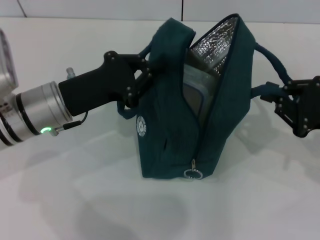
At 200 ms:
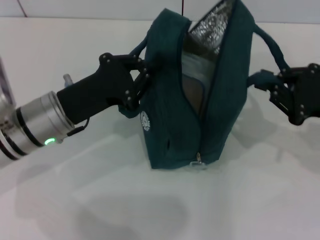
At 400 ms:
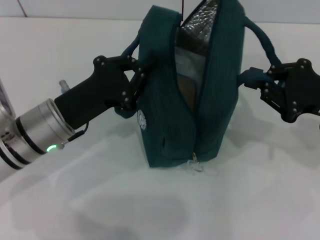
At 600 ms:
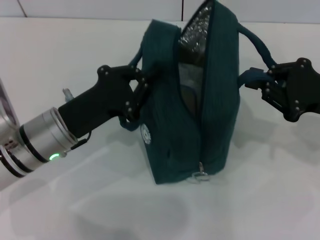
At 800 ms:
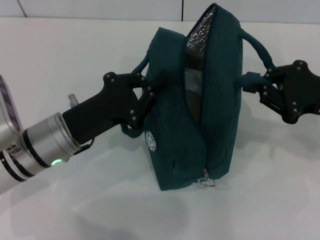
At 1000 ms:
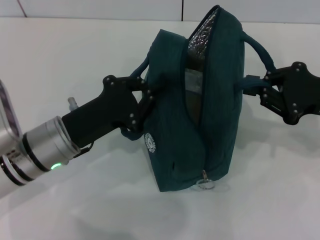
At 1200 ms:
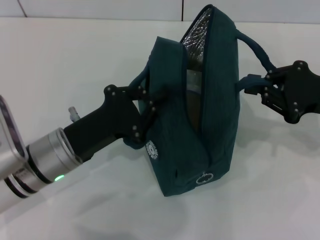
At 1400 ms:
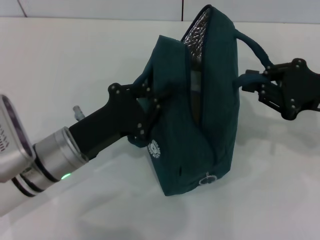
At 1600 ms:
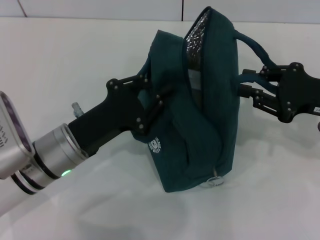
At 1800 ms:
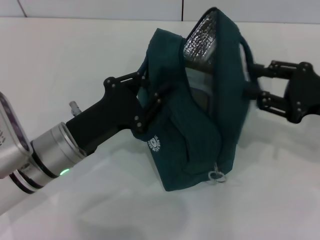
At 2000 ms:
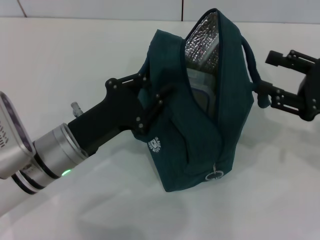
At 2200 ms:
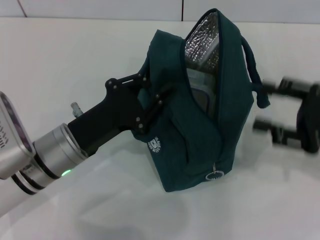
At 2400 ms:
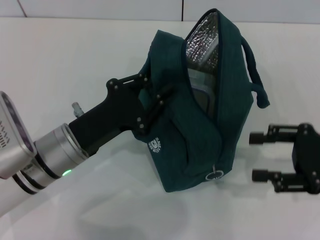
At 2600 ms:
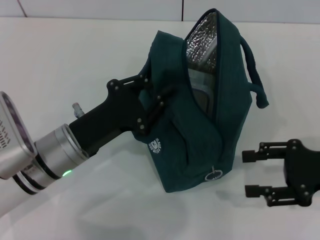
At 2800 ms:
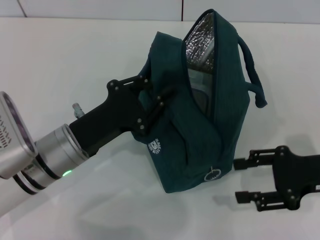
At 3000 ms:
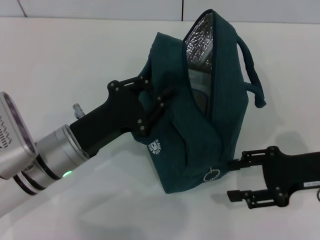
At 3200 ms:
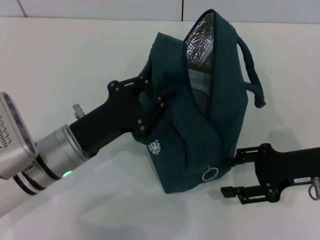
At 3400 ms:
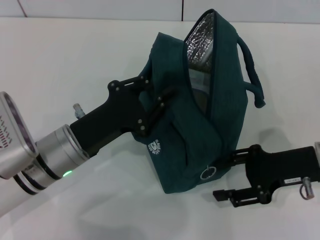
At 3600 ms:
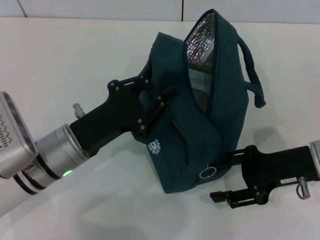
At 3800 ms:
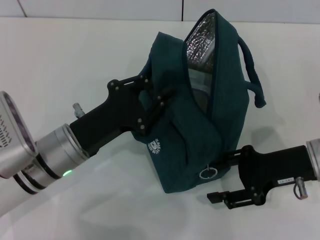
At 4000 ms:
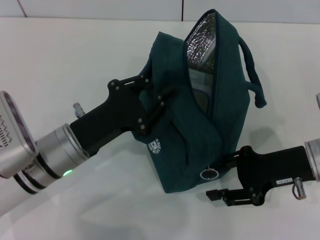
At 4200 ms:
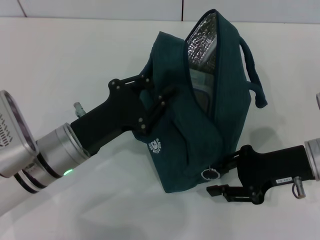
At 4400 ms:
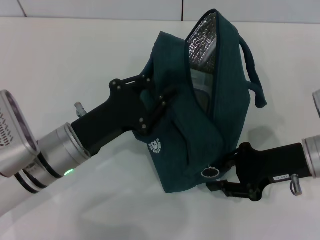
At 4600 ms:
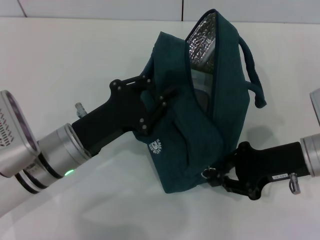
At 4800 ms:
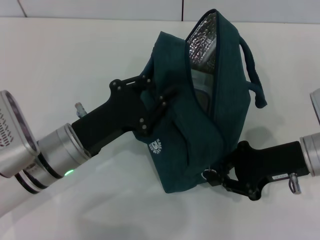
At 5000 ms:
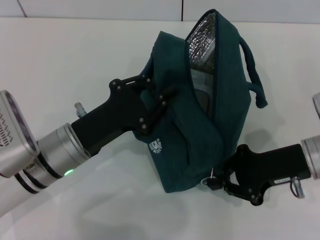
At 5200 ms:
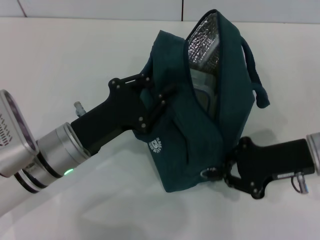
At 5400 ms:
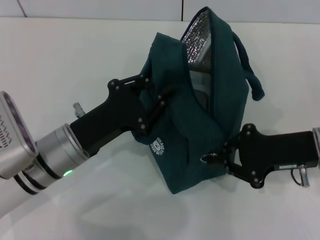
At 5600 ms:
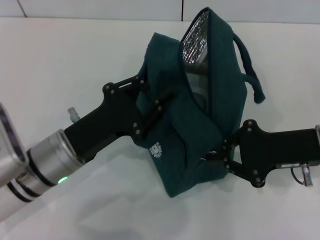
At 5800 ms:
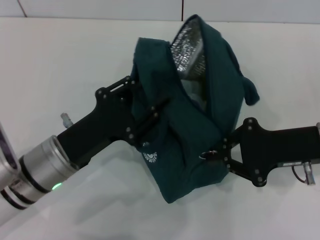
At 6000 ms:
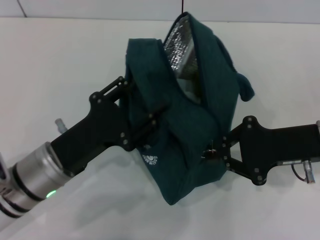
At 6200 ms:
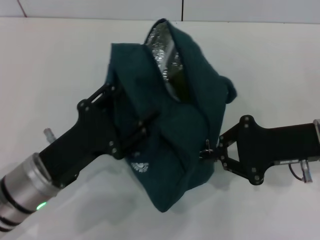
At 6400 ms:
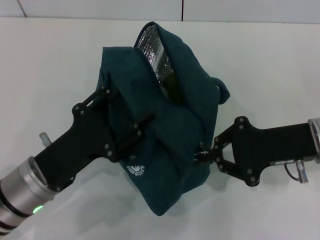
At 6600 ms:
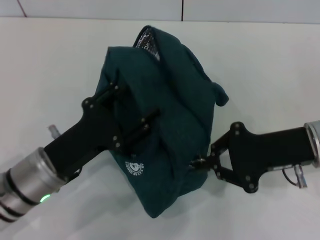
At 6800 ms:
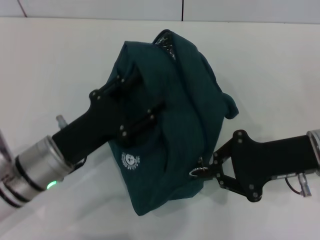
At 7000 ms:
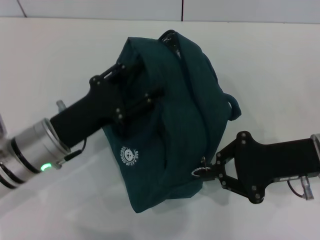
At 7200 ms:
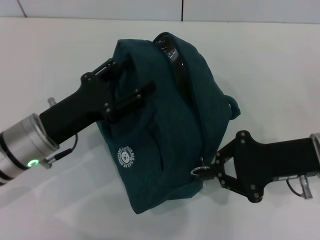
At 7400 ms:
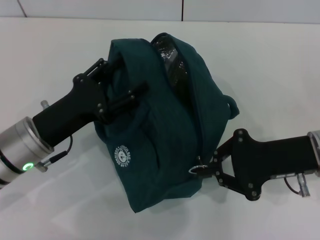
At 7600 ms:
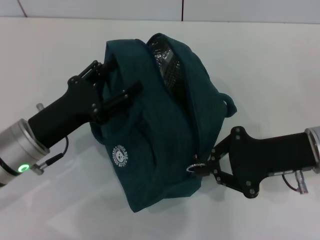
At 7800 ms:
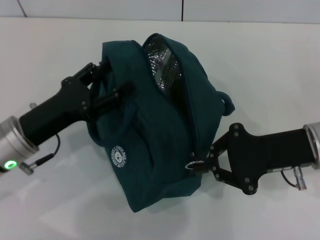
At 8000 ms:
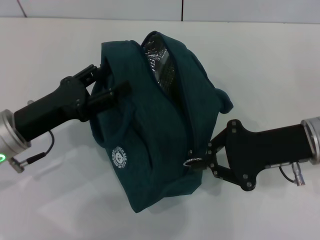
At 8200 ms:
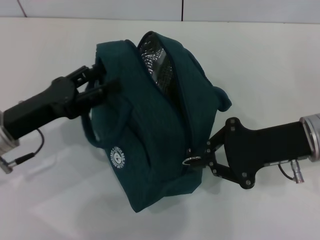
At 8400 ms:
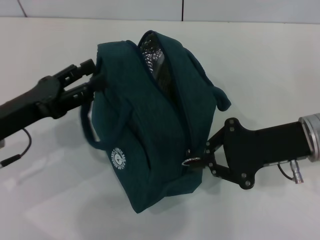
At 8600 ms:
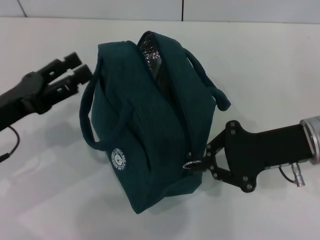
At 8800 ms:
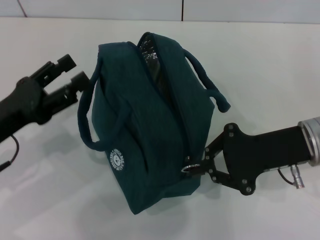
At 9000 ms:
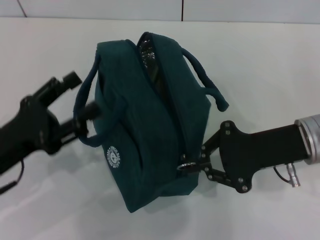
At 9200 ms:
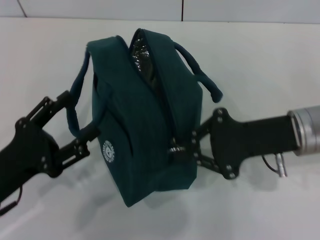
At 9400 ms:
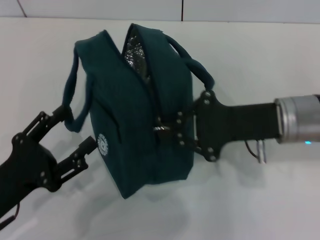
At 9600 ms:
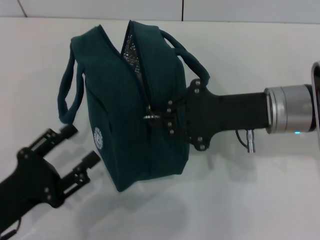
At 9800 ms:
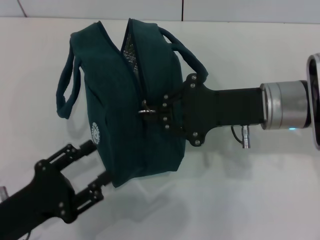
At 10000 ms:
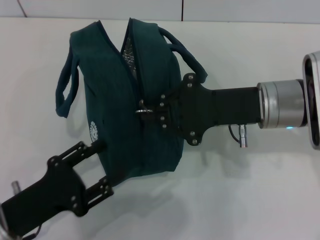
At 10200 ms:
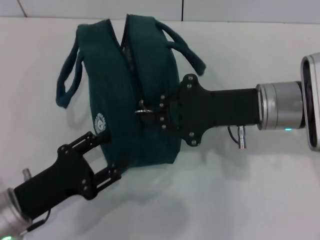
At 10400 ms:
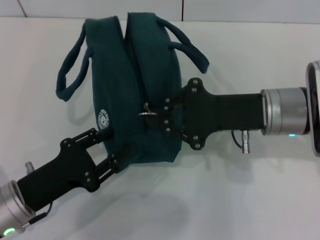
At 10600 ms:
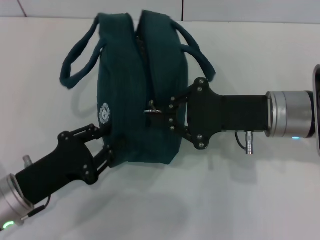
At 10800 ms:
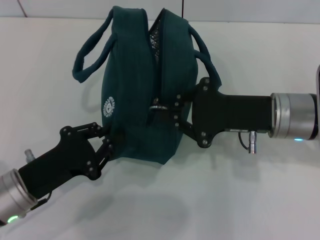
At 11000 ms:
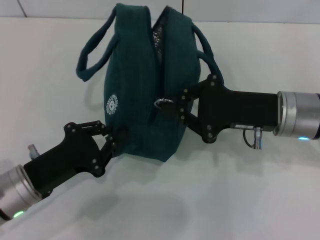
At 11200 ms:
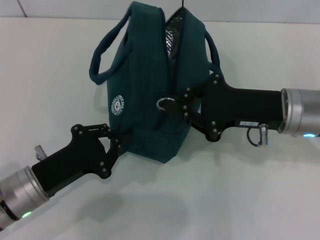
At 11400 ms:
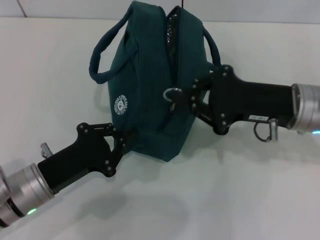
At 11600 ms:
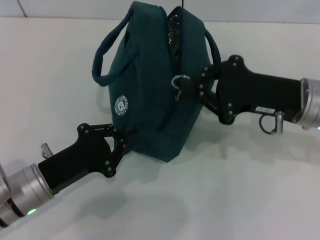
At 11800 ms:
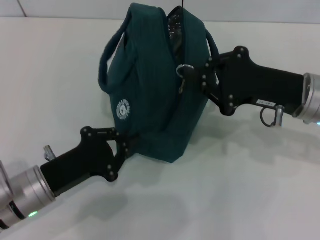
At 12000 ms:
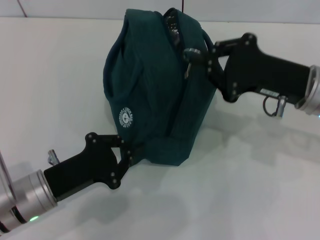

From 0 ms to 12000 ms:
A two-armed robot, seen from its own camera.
Step, from 1800 ms to 8600 ms: Hold the lunch bag with your left hand.
From 0 ms to 1600 ms: The left gripper changes place by some 5 cm.
From 1600 ms to 3000 ms: The right gripper moves about 5 cm, and opens up.
From 3000 ms to 4400 ms: There are only small adjustments of the grippers.
From 4400 ms to 6000 ms: The right gripper closes its fingers.
From 6000 ms to 7600 ms: The left gripper opens its fingers.
From 7600 ms to 9000 ms: The left gripper changes place by approximately 5 cm.
From 9000 ms to 10400 ms: The left gripper shifts some 5 cm downward.
From 10400 ms to 12000 ms: The left gripper closes up.

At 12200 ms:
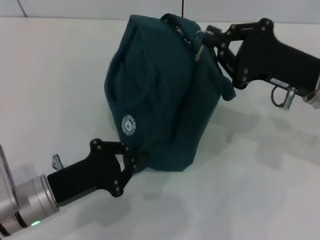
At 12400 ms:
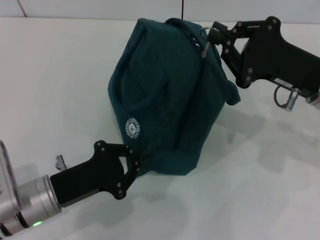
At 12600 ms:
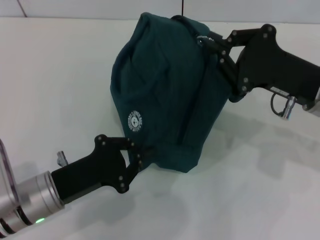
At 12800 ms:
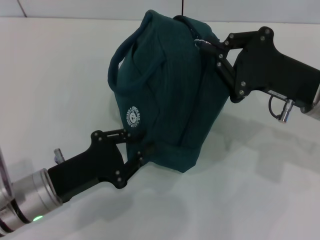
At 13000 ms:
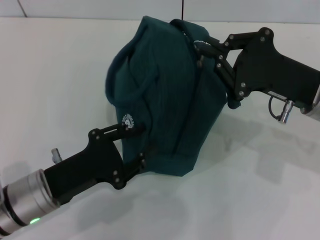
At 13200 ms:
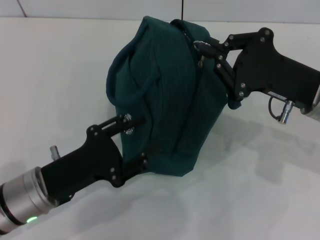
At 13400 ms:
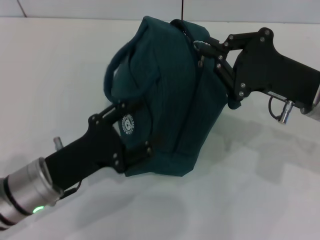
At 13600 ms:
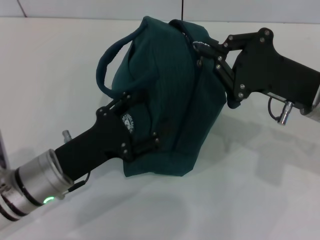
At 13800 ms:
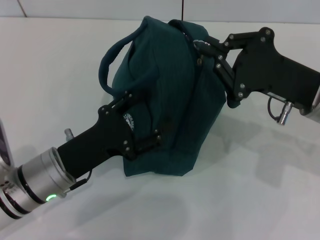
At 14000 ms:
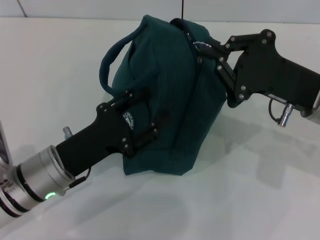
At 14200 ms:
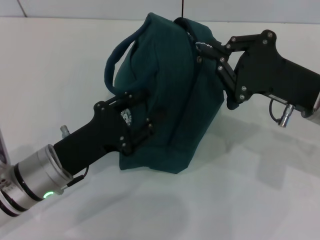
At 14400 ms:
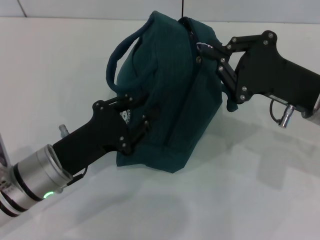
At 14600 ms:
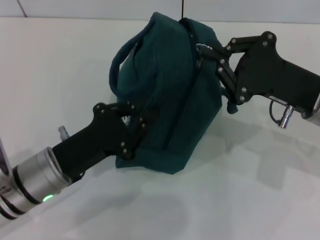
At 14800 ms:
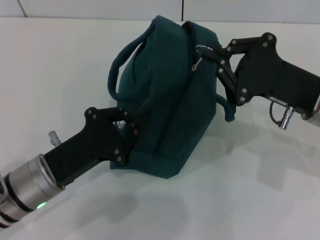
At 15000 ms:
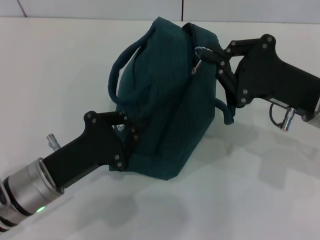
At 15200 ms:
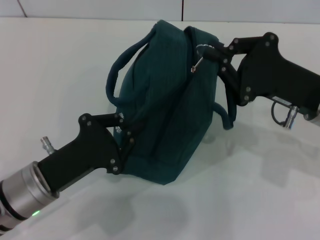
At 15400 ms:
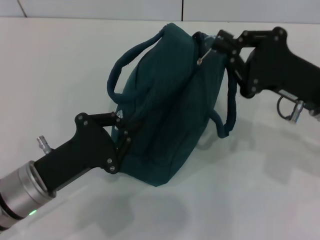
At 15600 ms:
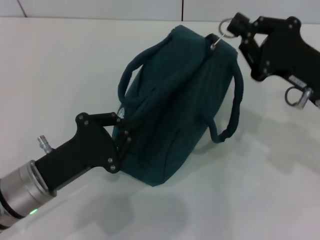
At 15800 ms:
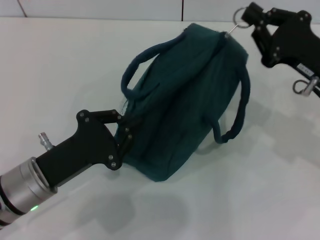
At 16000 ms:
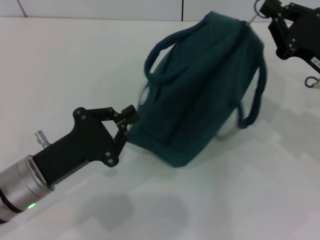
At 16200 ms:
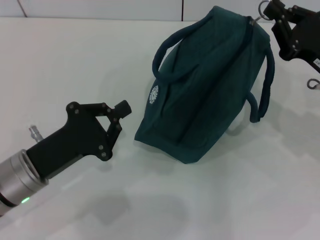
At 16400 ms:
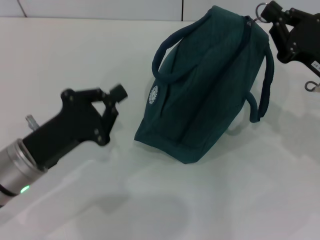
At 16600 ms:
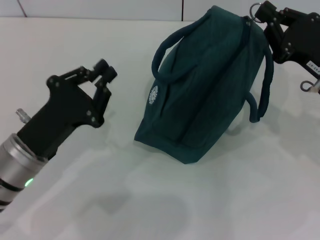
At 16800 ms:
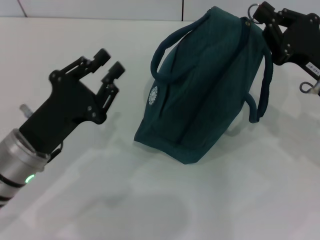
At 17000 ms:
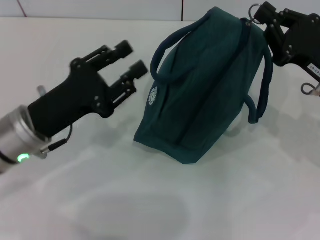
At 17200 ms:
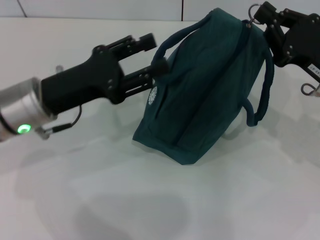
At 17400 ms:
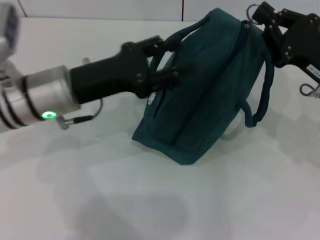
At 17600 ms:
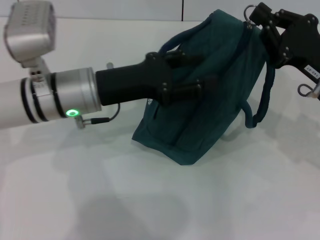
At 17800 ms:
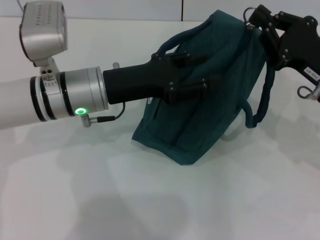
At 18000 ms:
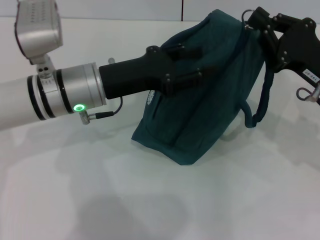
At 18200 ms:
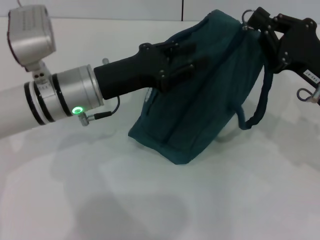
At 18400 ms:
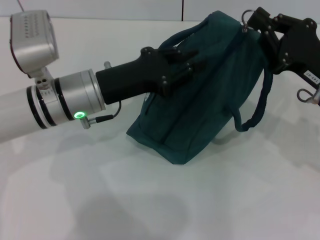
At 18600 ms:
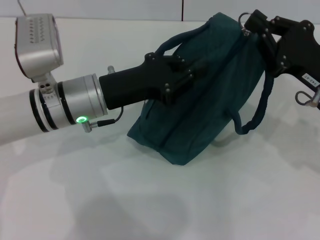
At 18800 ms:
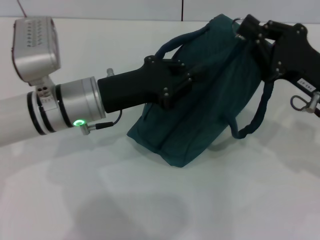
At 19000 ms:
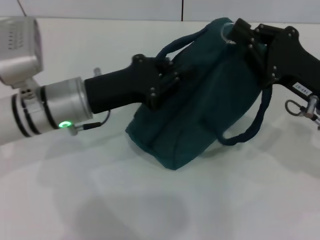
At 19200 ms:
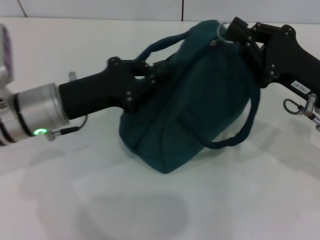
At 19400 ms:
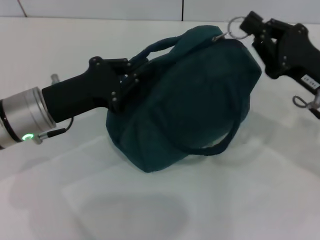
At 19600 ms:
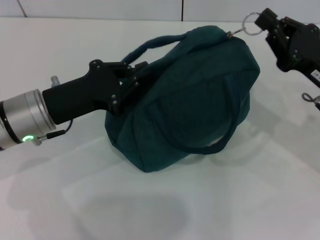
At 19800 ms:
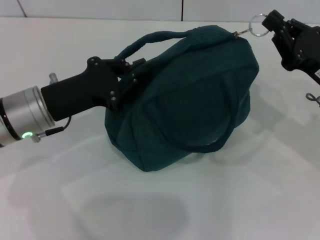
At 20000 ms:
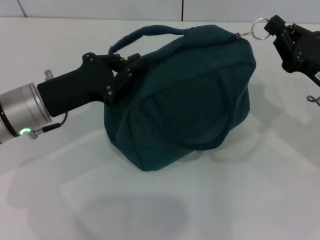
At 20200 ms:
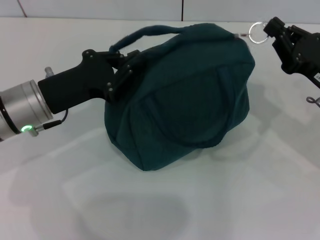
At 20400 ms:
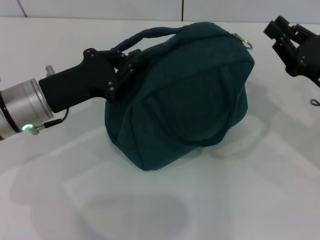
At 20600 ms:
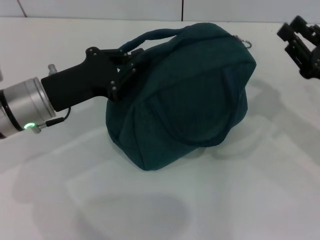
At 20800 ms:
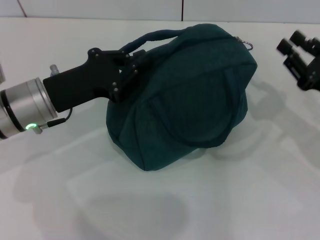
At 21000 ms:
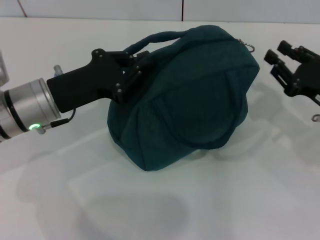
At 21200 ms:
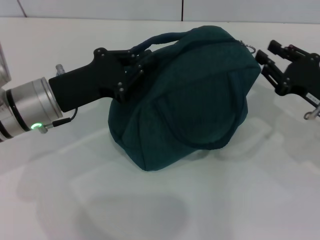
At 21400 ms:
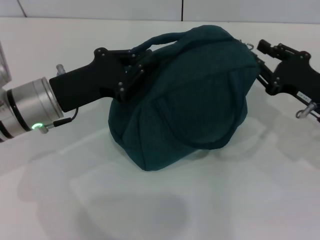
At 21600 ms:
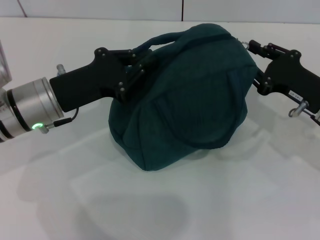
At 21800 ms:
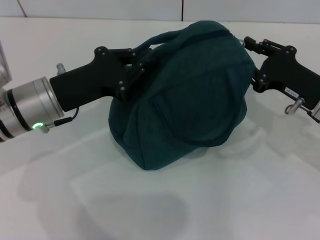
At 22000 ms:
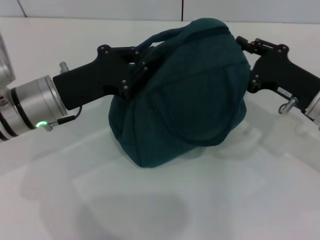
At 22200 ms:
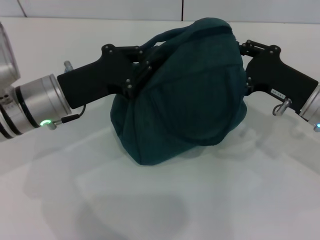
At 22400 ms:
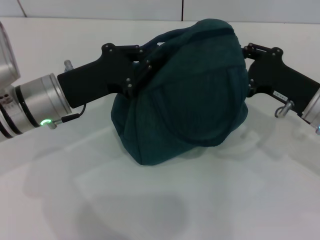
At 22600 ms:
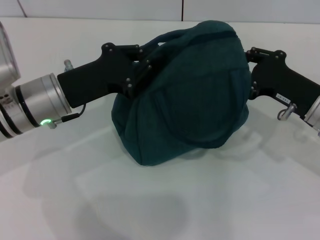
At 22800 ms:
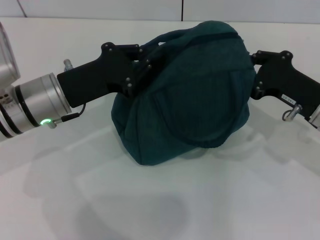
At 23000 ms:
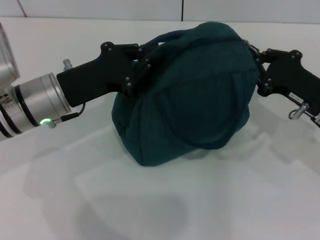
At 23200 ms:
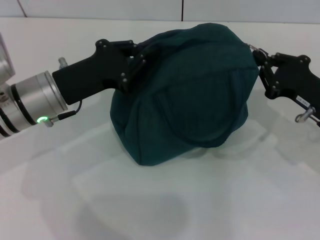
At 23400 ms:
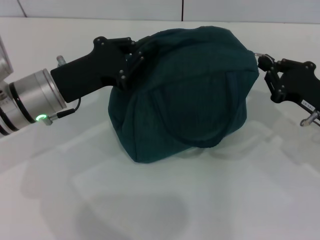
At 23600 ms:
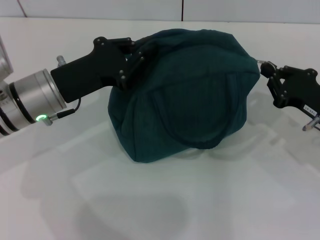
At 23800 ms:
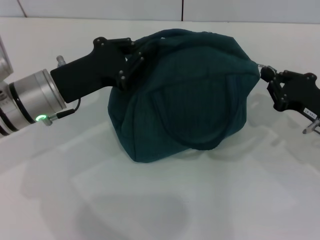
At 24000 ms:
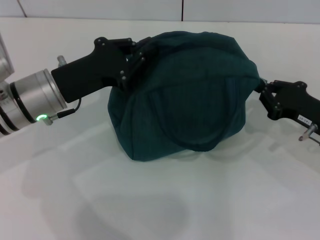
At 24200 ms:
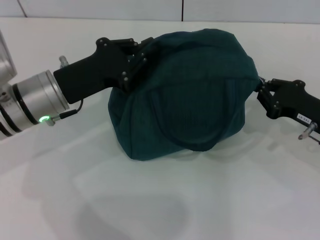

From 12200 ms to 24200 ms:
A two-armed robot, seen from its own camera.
From 12200 ms to 13800 ms: The left gripper opens.
From 13800 ms to 15200 ms: The left gripper closes up.
From 16600 ms to 18200 ms: The left gripper moves forward, to the right and upward, roughly 15 cm, and opens.
From 18200 ms to 19800 ms: The left gripper goes some 5 cm to the left, and closes its fingers.
From 19800 ms to 21200 ms: There are only small adjustments of the grippers.
From 21200 ms to 24200 ms: The grippers move only a little.
